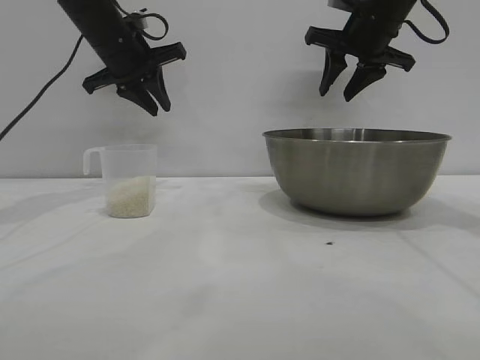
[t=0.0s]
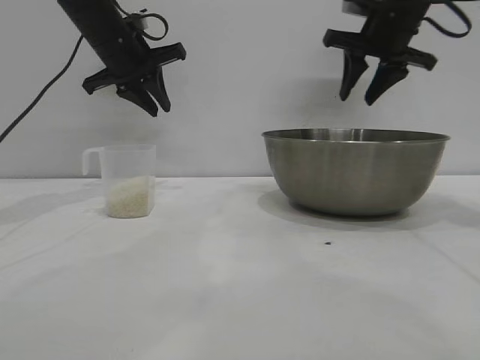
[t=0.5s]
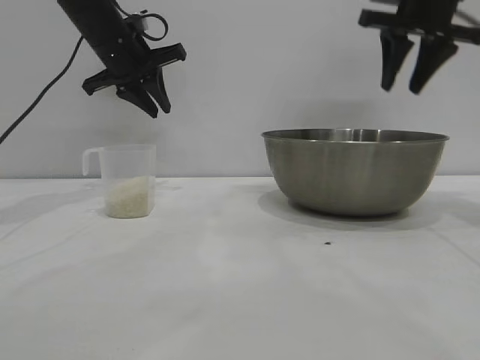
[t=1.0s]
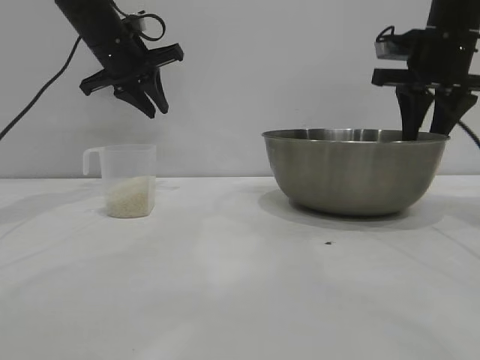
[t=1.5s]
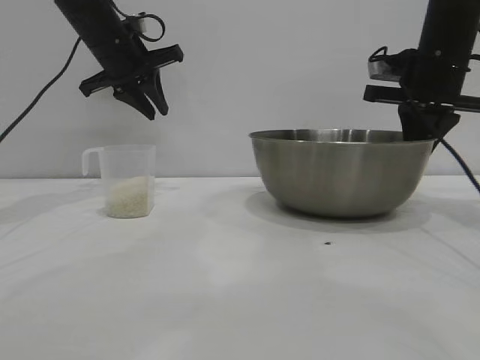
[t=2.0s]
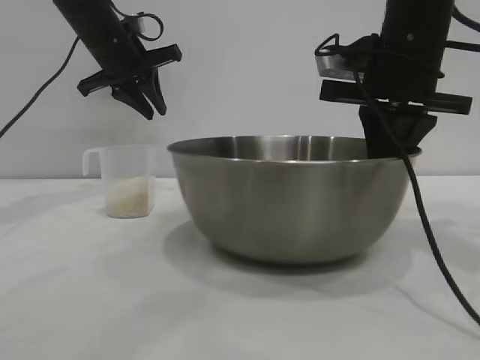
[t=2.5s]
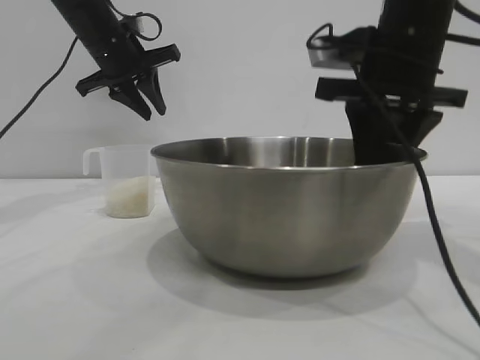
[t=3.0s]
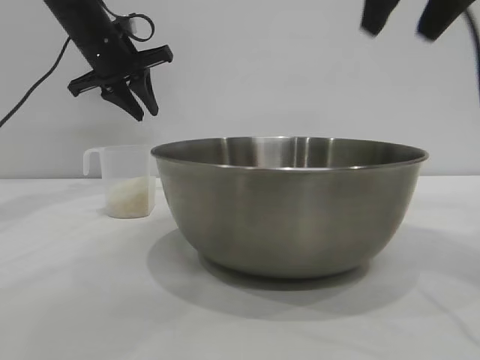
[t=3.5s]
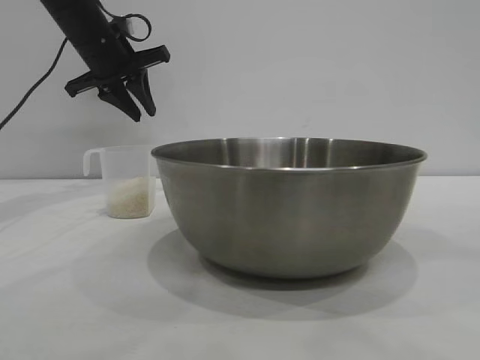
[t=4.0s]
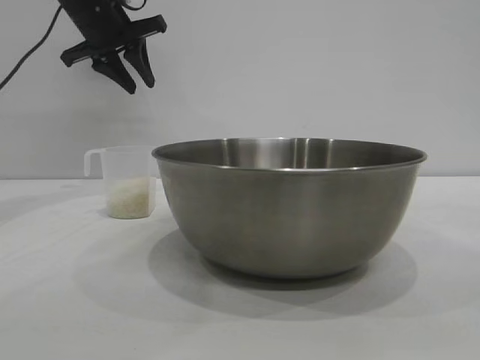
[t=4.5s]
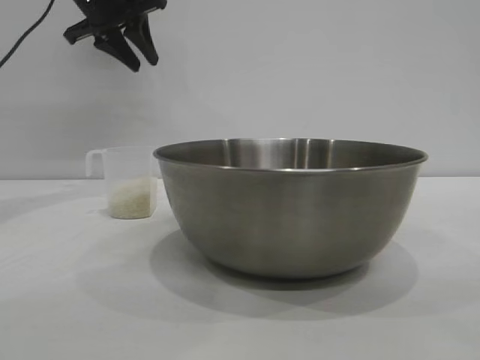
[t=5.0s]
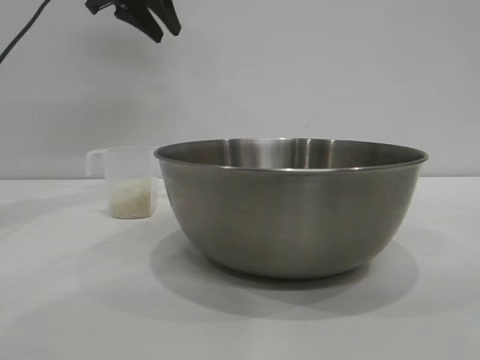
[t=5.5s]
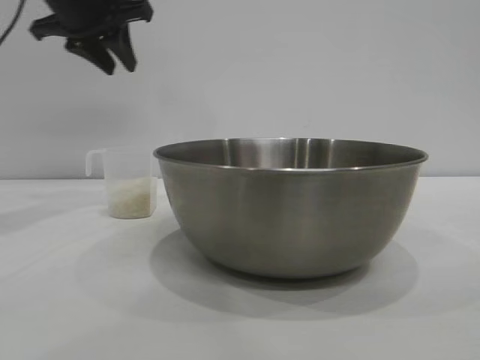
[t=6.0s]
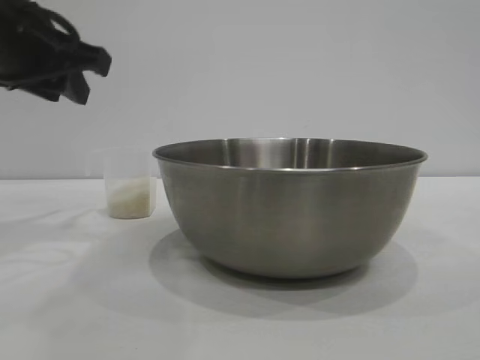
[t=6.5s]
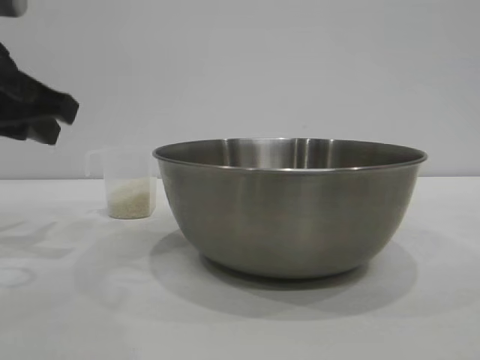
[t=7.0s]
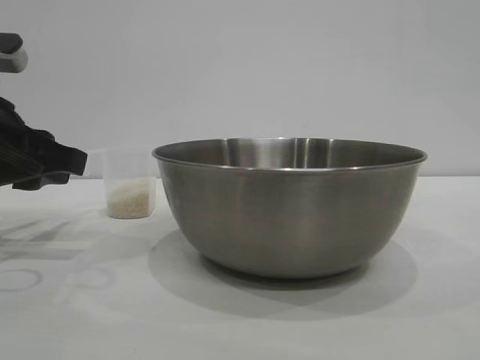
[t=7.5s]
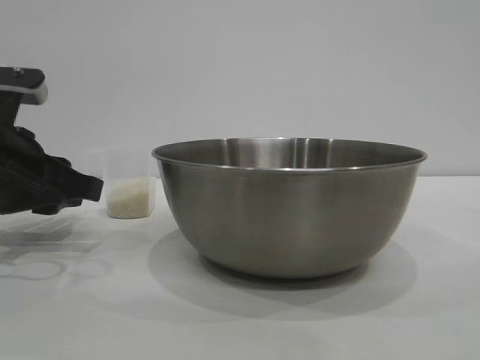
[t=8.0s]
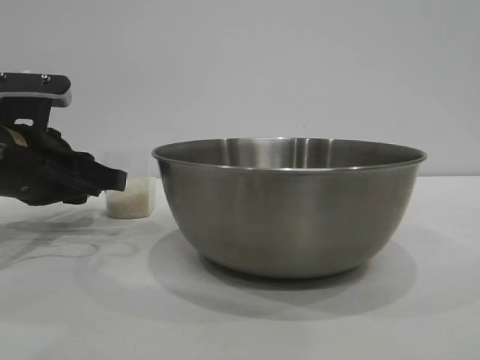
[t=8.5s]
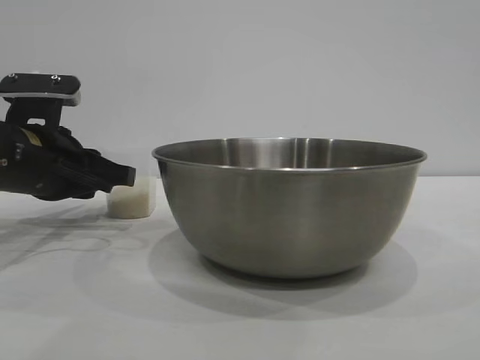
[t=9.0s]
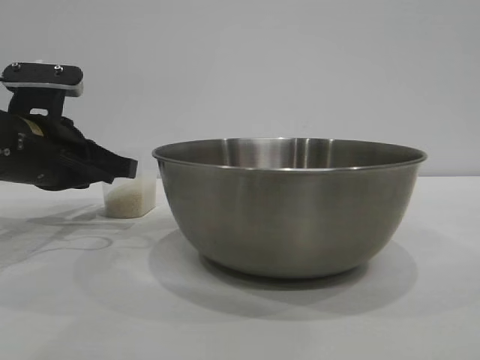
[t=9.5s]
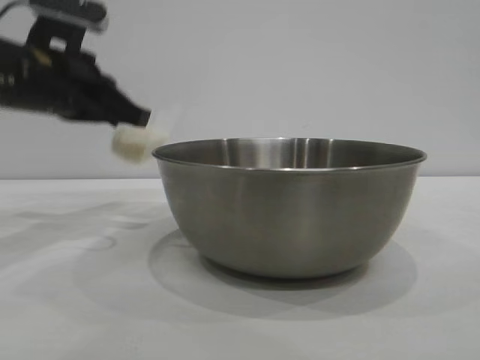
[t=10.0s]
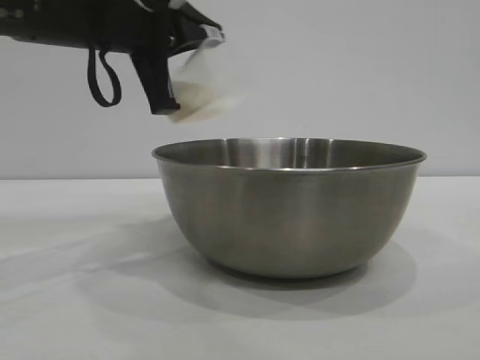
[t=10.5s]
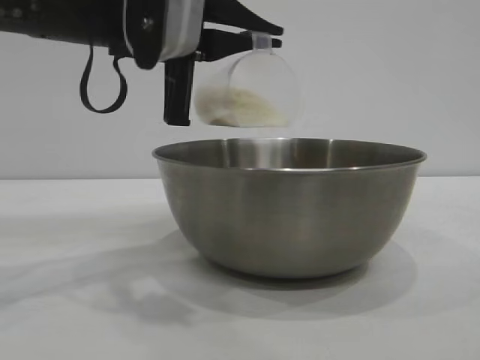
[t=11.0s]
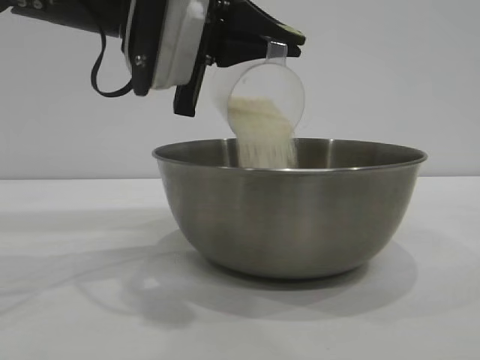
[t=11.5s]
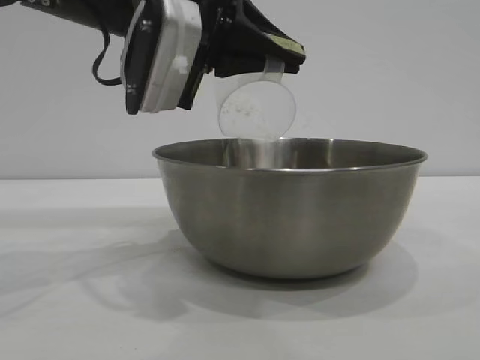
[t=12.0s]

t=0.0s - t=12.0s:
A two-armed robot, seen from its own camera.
Task of the whole recording: the right gripper grasp the rice container and place it in the center of the table, the left gripper grasp the rice scoop and pour the rice into the rice container.
Step, t=0.0s - t=3.0s: Move the bowl to the center of view with the right gripper.
Step, t=3.5s - t=10.0s: Pick up the cup with rice in it with the left gripper.

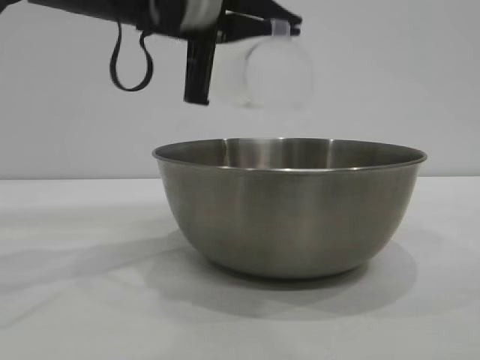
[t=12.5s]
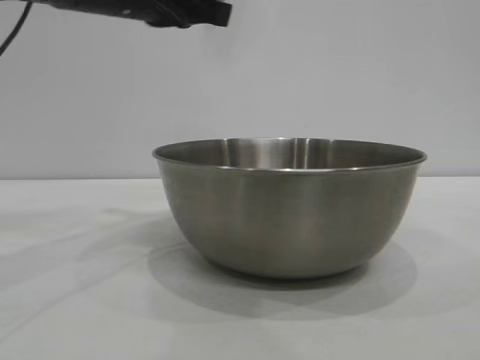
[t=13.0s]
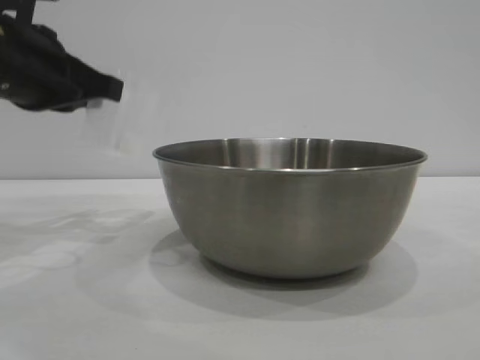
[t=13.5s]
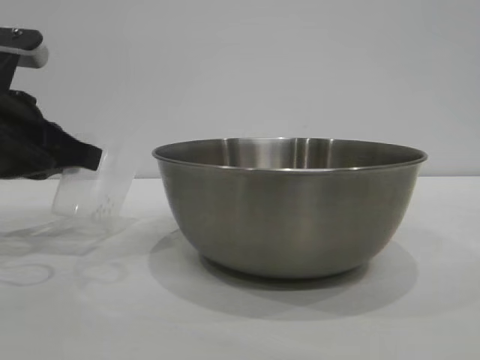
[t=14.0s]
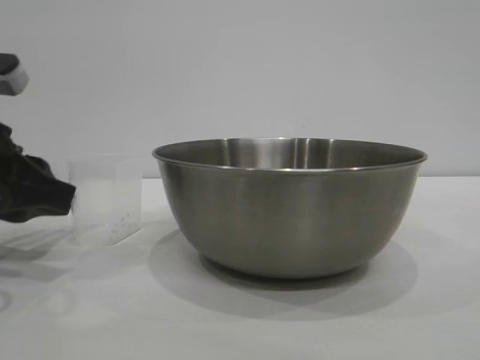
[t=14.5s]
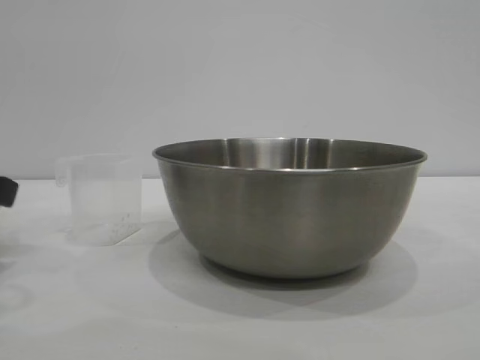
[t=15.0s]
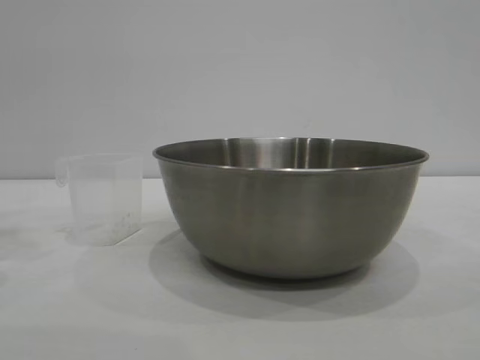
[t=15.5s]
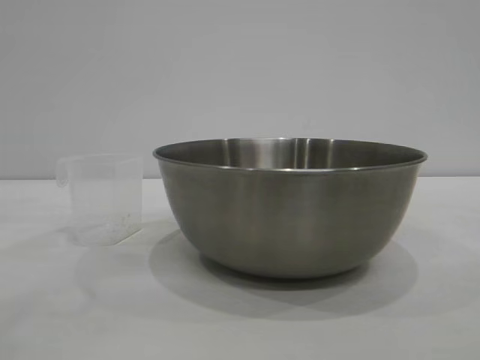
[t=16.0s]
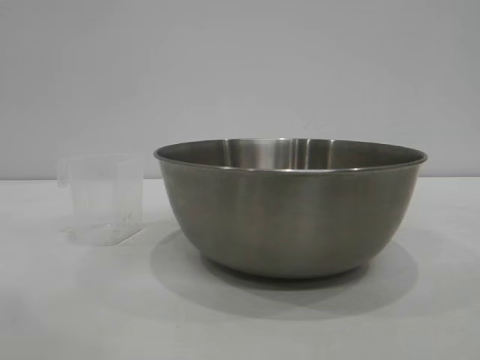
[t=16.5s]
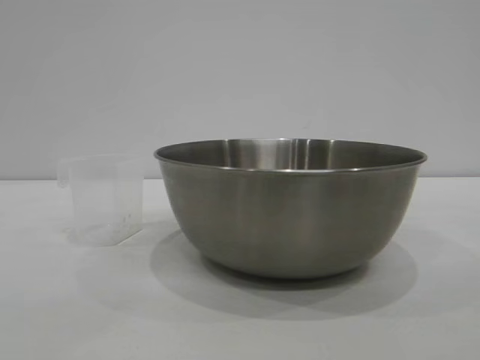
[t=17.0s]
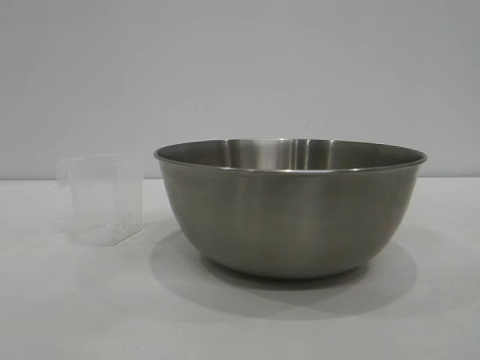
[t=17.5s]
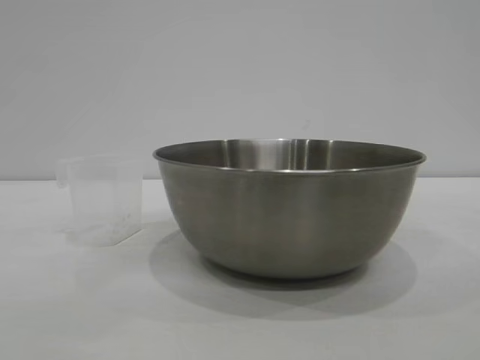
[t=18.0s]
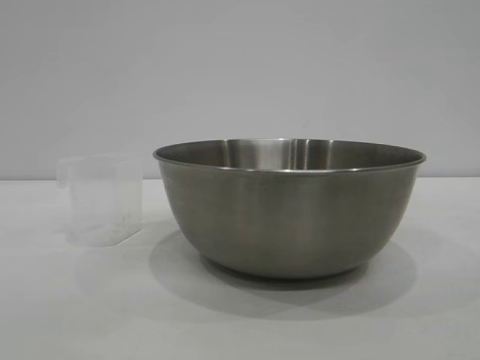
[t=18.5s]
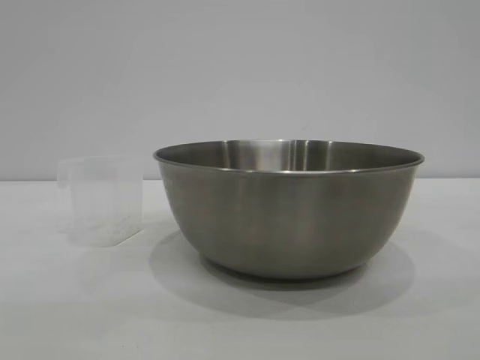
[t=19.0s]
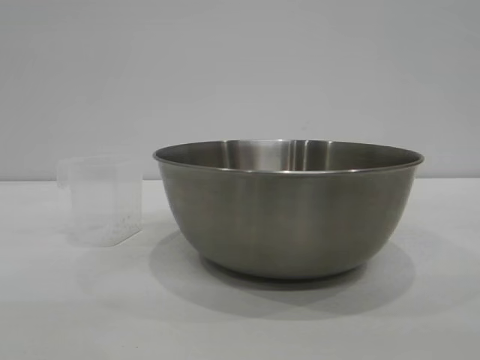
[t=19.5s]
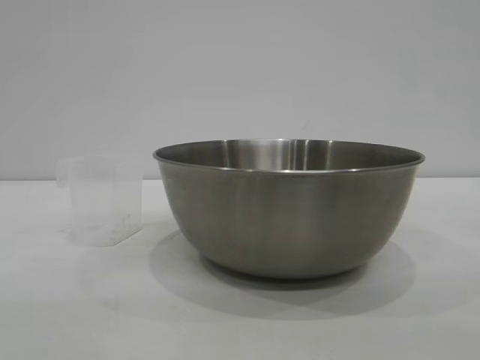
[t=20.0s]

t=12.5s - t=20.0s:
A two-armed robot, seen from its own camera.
Task of the whole recording: the right gripper grasp the rice container and place it in the center of the table, the left gripper grasp the rice scoop and pour the rice into the rice container.
Step, t=13.0s - t=14.5s: Place the cup on the table with the left gripper.
